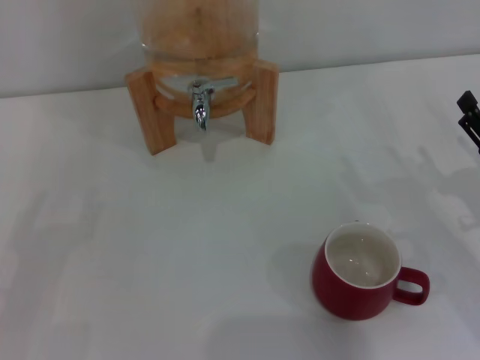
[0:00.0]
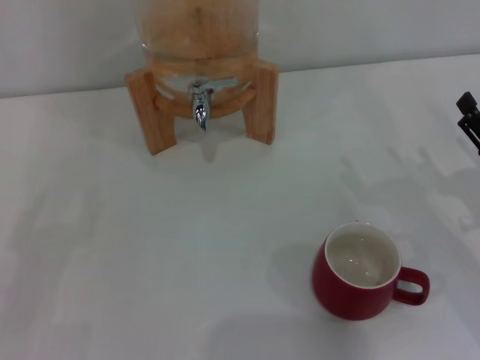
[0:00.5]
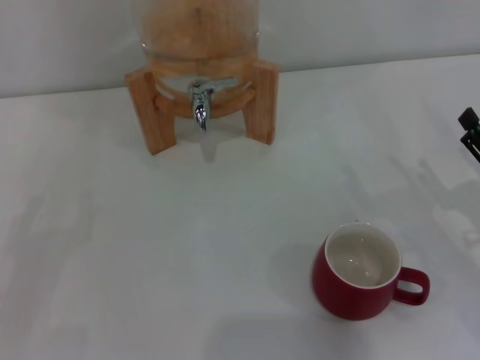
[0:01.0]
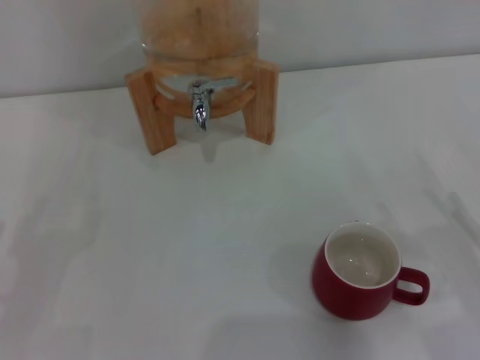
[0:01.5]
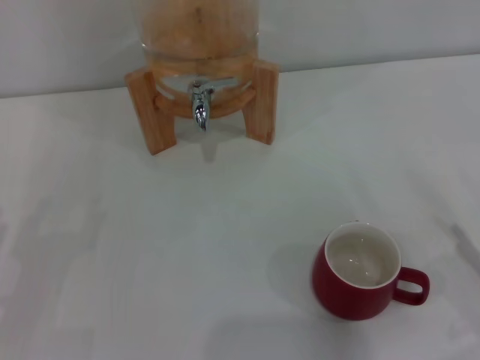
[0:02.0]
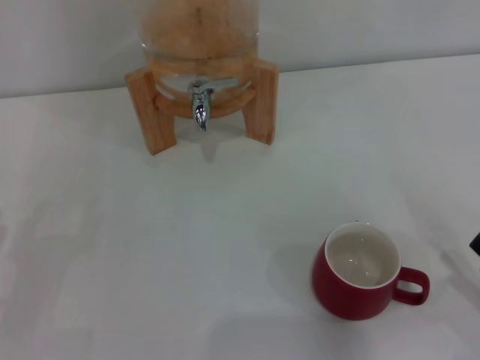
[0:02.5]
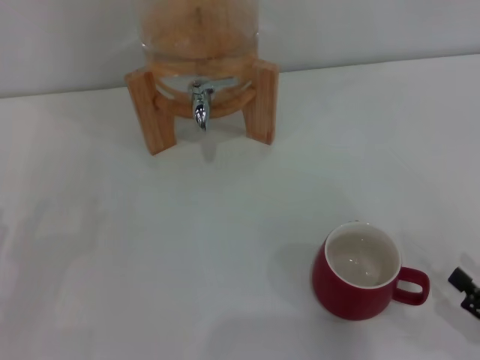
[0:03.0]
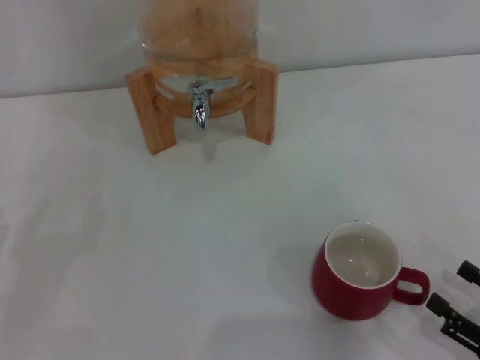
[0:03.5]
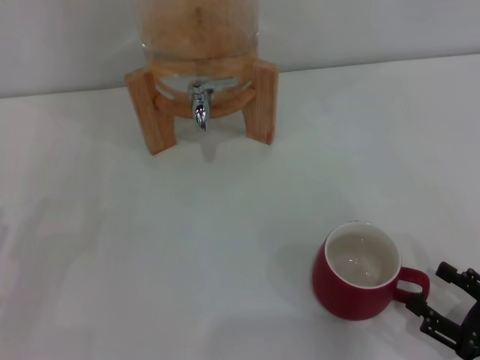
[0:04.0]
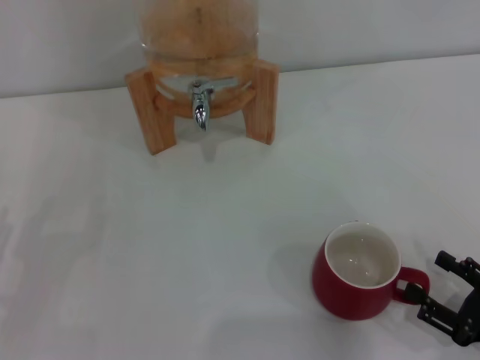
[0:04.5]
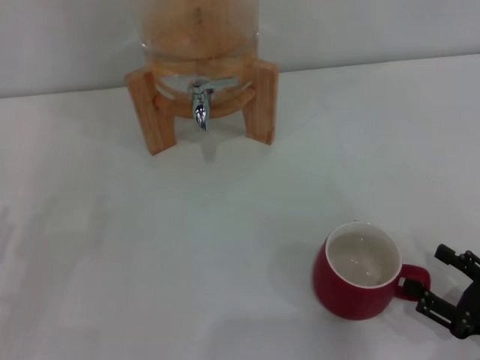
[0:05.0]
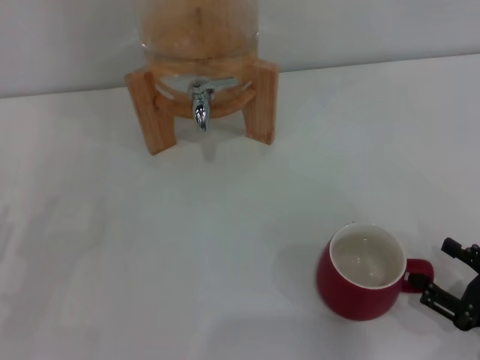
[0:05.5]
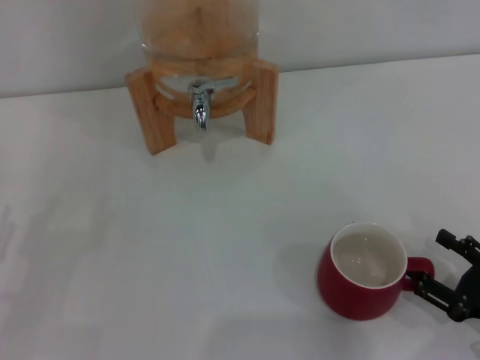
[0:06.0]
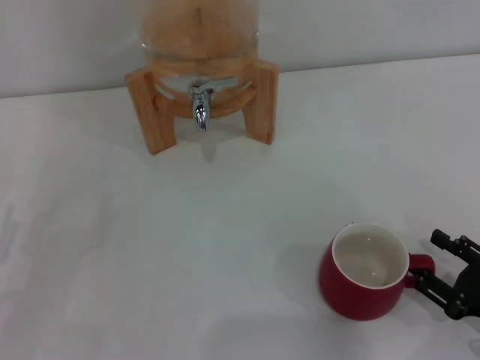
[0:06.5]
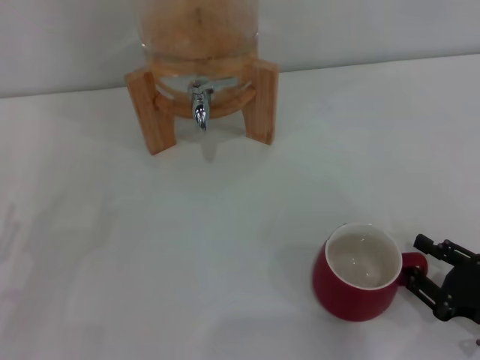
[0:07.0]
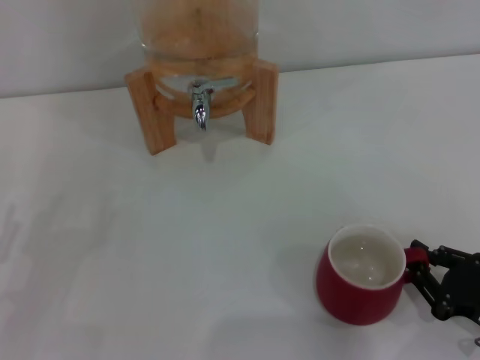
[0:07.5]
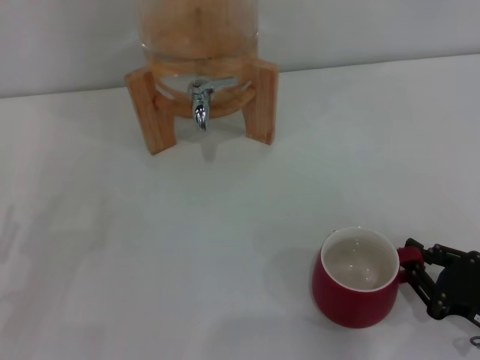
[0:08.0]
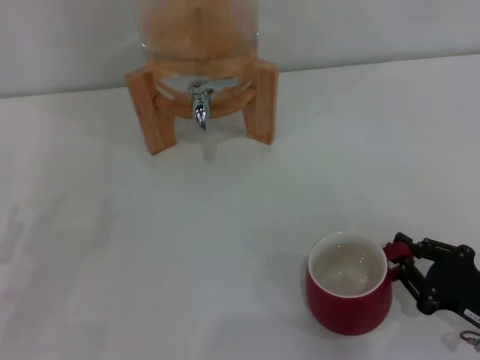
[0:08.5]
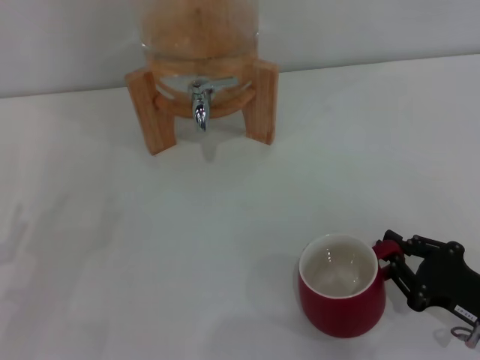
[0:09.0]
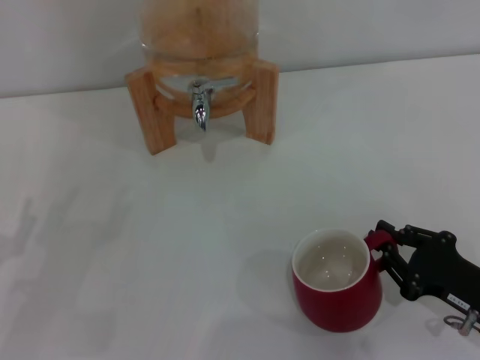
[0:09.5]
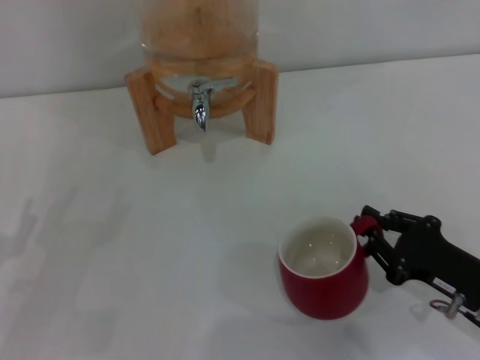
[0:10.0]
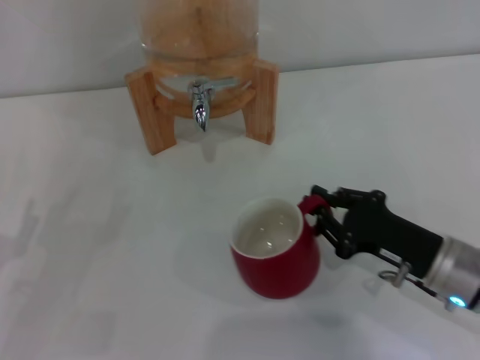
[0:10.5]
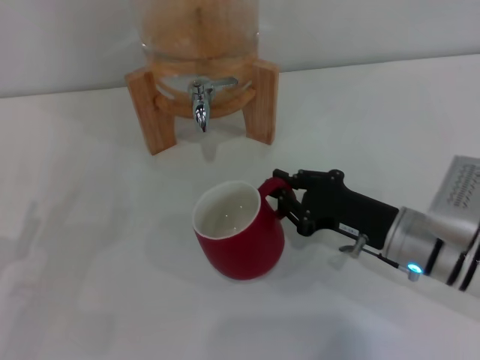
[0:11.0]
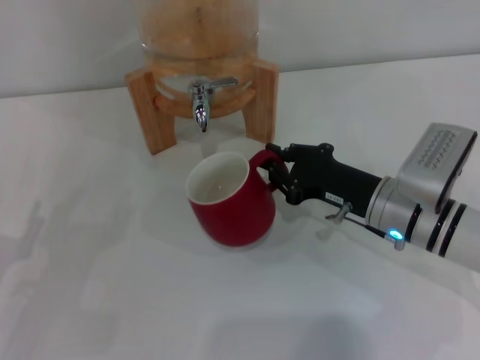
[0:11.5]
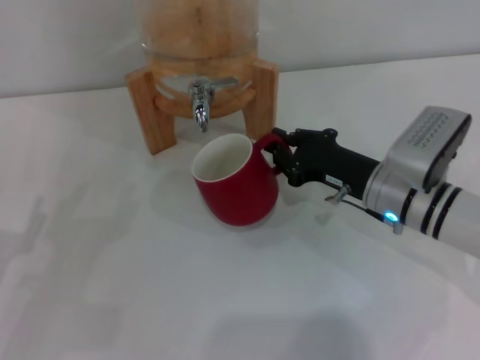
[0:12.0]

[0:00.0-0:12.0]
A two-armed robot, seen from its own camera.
Task of the whole recording: the right gripper pick up the red cup and place it horizontally under the faucet, the left gripper turn on the faucet to fill the cup, and then turn off the faucet.
4.0 to 6.0 s: The grippers stay close to where they were, moving slightly.
6.0 to 8.0 s: The right gripper closes.
8.0 to 10.0 s: The right gripper shifts by about 5 cm.
10.0 to 12.0 s: The right gripper heads forward and to the left, covering roughly 15 cm.

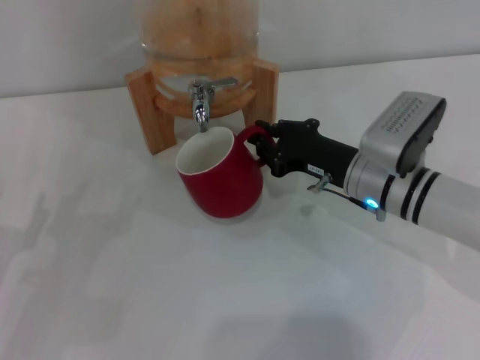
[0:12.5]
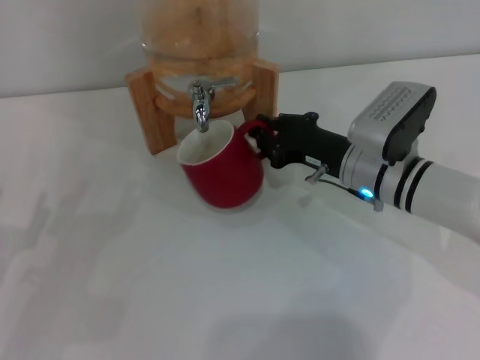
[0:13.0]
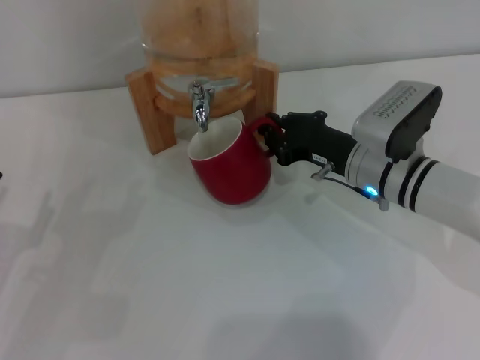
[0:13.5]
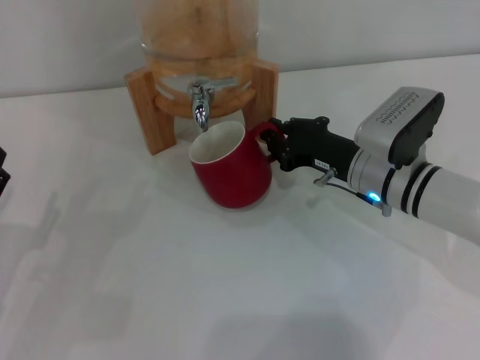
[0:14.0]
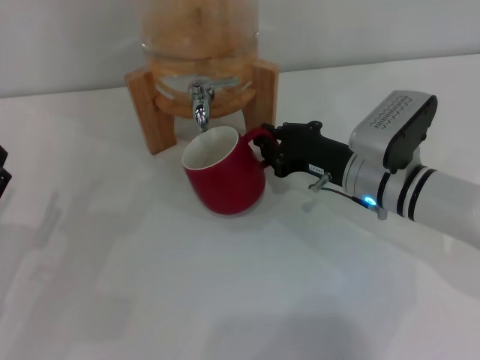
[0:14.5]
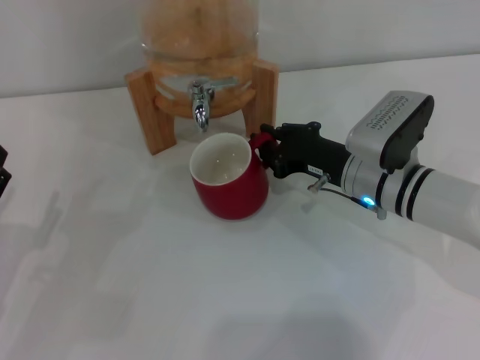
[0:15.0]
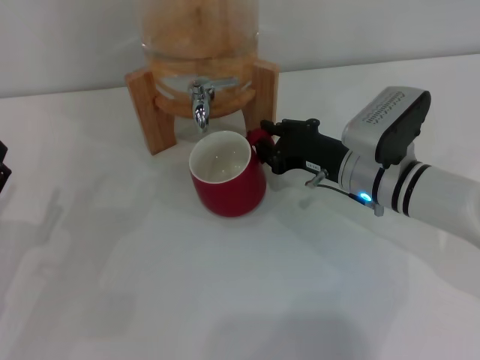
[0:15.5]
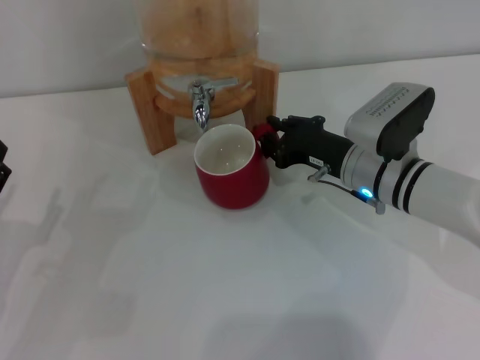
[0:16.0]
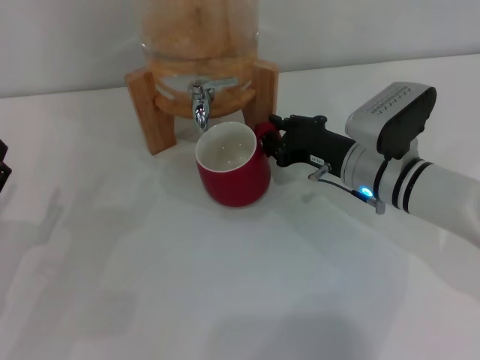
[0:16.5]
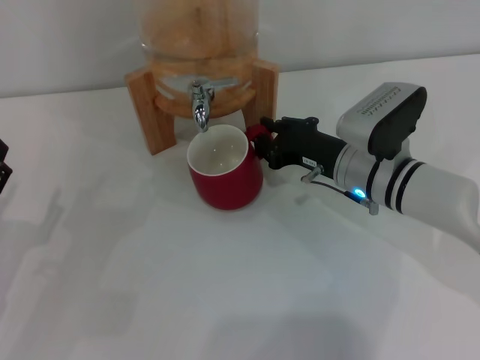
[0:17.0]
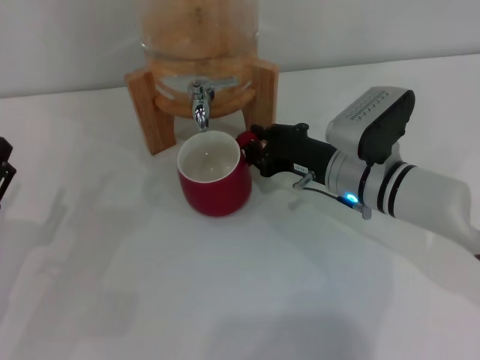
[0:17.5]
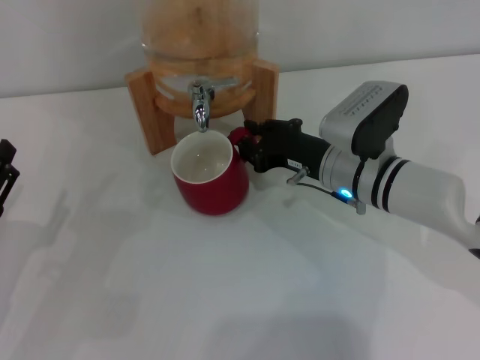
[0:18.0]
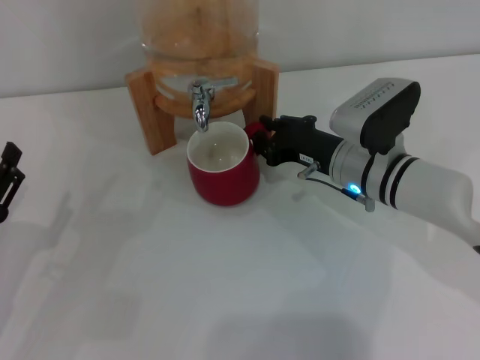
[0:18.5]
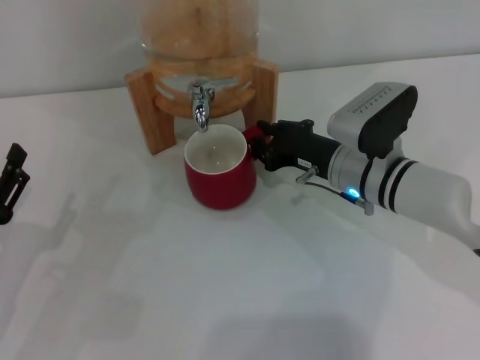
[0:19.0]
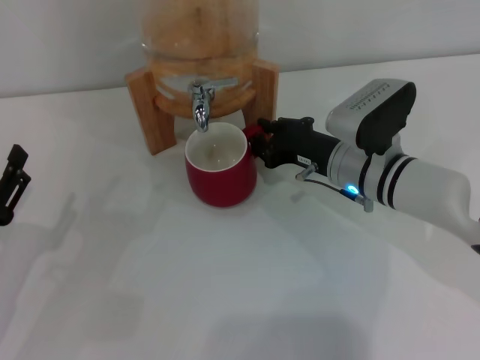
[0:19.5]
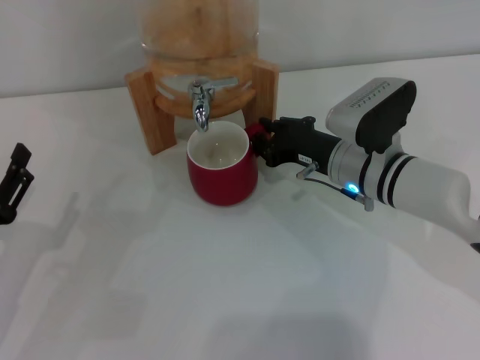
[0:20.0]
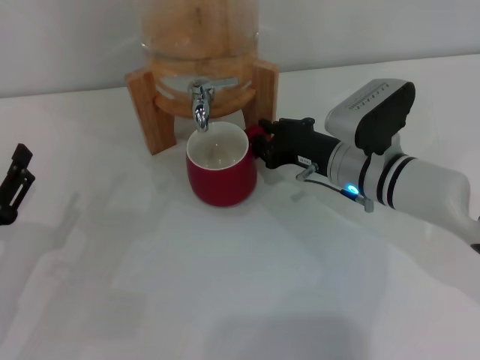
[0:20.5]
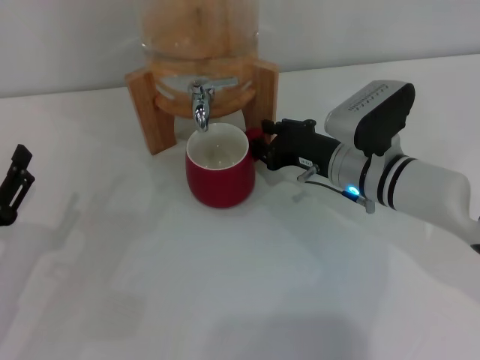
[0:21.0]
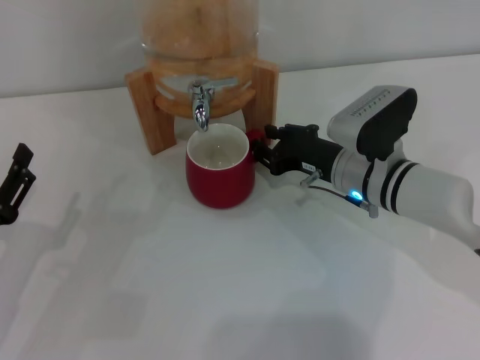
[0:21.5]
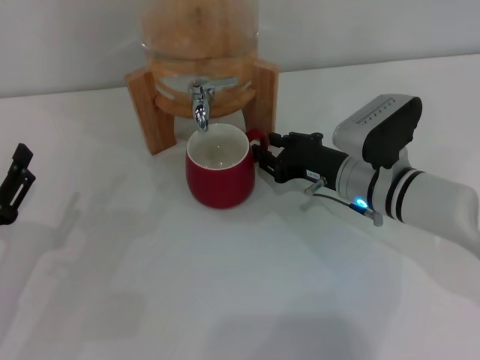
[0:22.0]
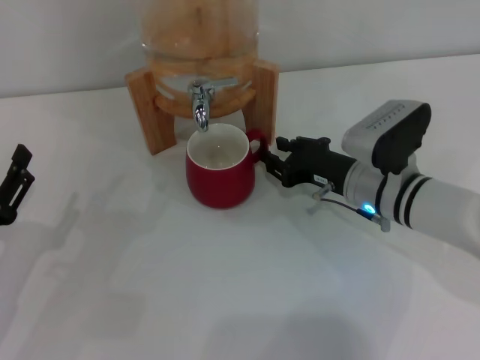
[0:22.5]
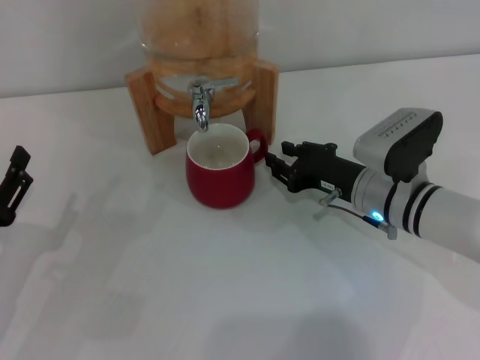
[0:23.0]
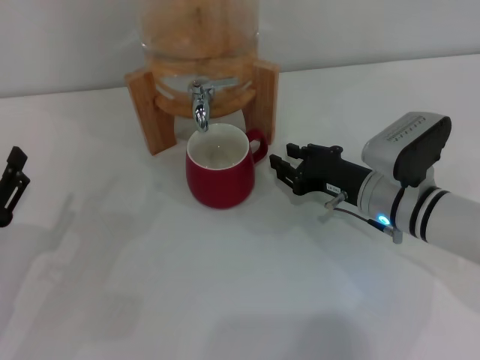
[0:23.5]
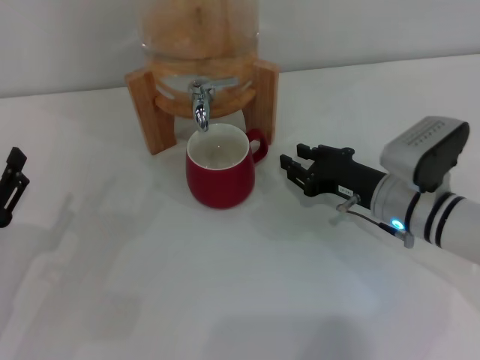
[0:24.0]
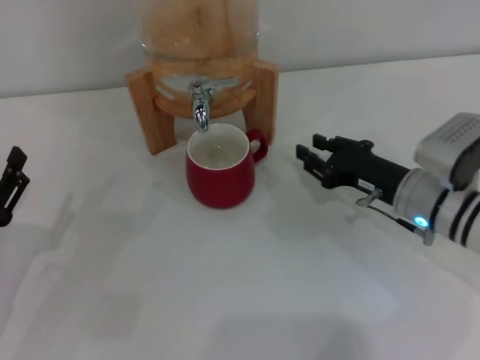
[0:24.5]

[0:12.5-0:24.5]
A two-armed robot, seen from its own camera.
Task of the whole recording: the right gripper pick up the red cup and place it horizontally under the faucet, the left gripper turn on the faucet to fill the cup, and then turn off the faucet.
Step, 12.5 to 23.5 s: Move the cup beneath the water dispenser nozzle with the right gripper.
12.5 to 18.5 s: The grippers stay close to where they were, moving slightly.
18.5 to 20.5 s: Neither gripper changes place.
20.5 to 22.5 s: The grippers make only small movements.
22.5 to 24.5 s: The right gripper ends up approximately 5 cm from where it was.

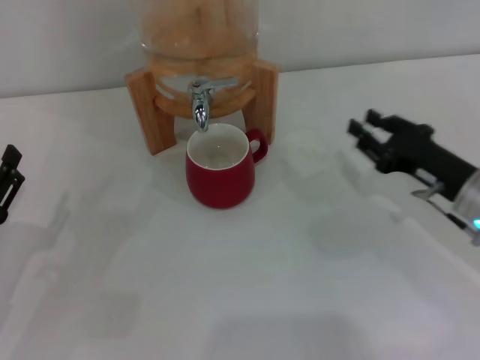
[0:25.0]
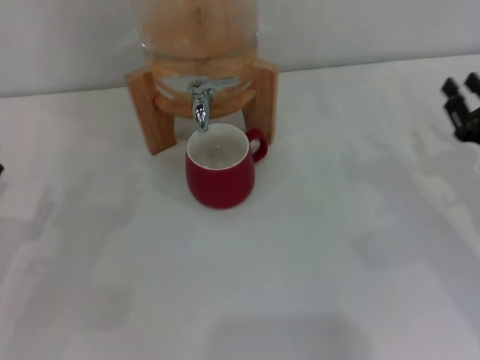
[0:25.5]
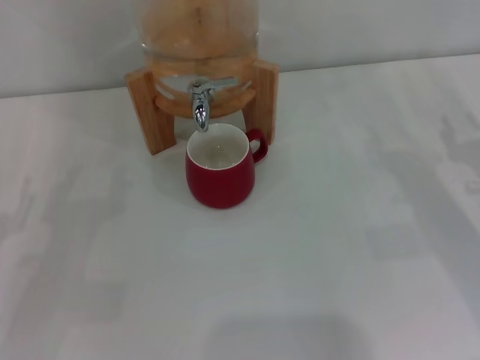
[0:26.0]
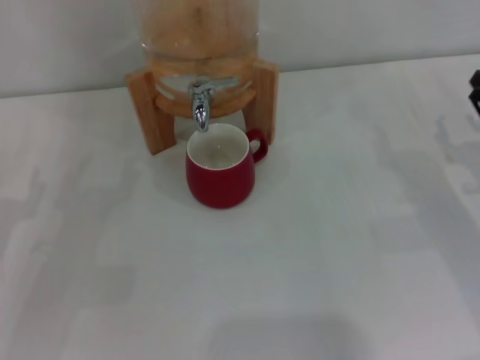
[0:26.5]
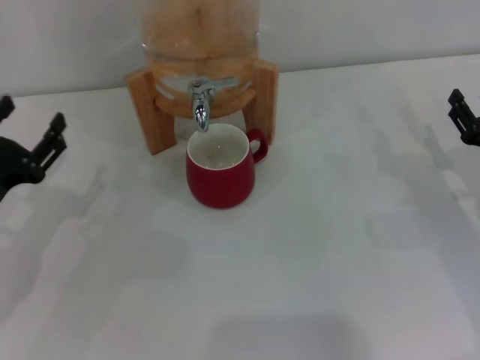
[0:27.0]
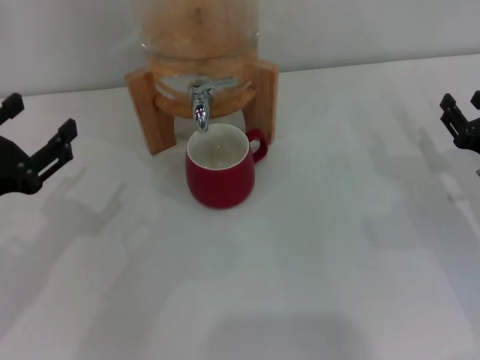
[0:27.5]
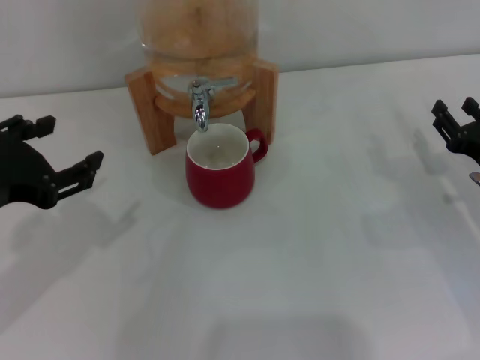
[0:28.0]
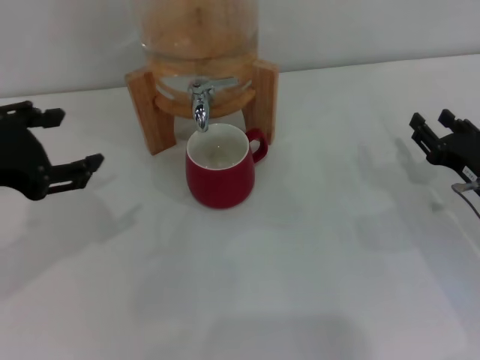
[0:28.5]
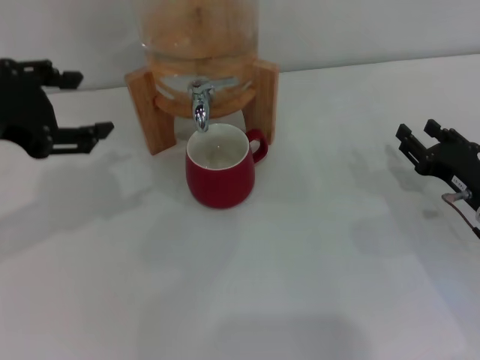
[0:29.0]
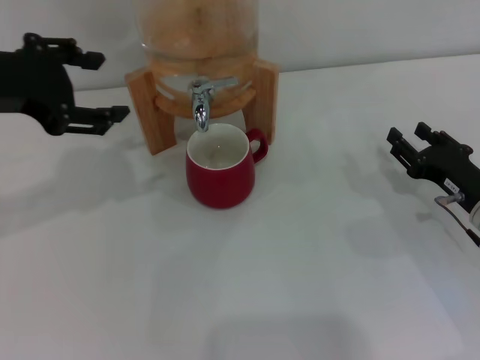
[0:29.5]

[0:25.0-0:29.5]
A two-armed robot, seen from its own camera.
Task of the whole recording: the right gripper pick up the red cup and place it horizontally under the faucet, the left gripper turn on the faucet to fill the cup, and then turn off the faucet.
25.0 to 27.0 s: The left gripper changes place by approximately 5 cm. Meanwhile the right gripper travels to the right by some 5 cm.
27.0 to 29.5 s: The left gripper goes approximately 20 cm upward.
